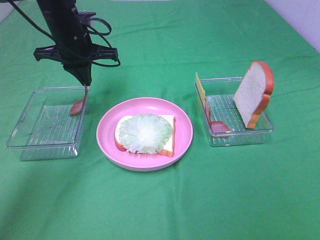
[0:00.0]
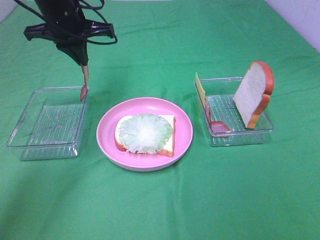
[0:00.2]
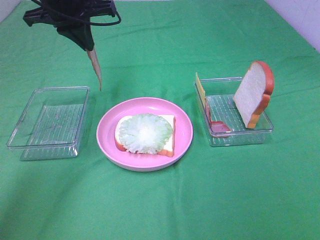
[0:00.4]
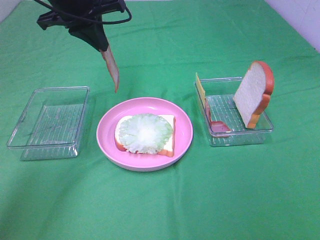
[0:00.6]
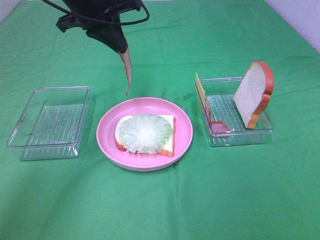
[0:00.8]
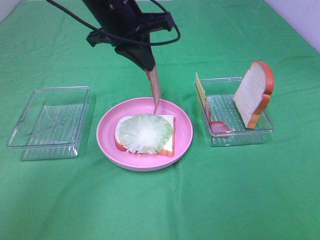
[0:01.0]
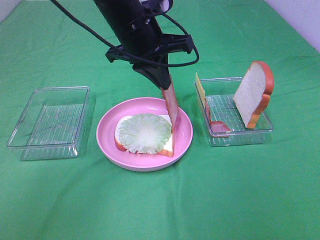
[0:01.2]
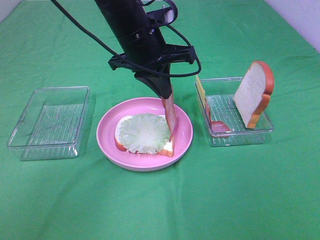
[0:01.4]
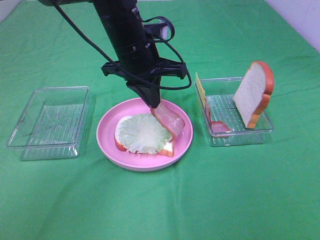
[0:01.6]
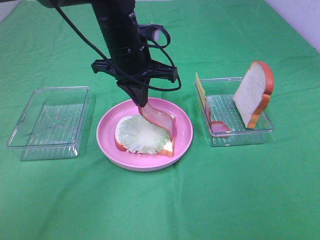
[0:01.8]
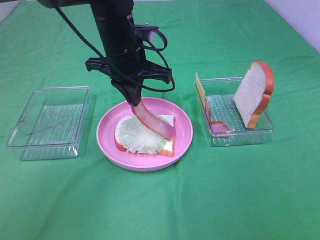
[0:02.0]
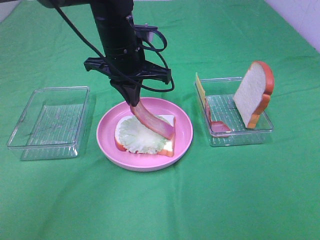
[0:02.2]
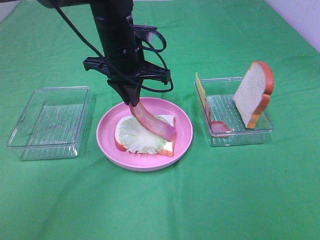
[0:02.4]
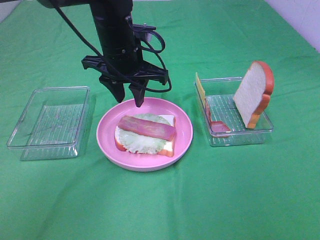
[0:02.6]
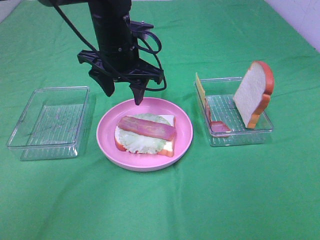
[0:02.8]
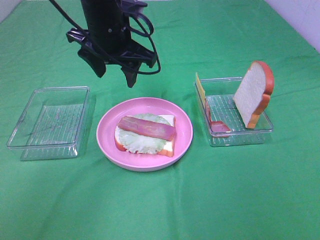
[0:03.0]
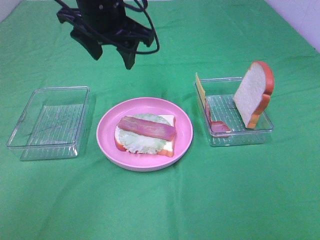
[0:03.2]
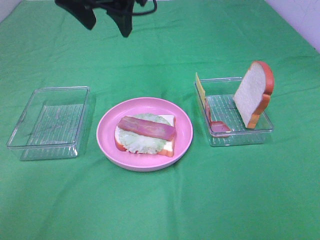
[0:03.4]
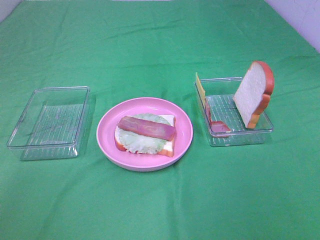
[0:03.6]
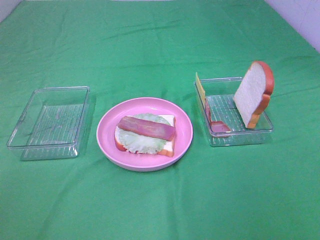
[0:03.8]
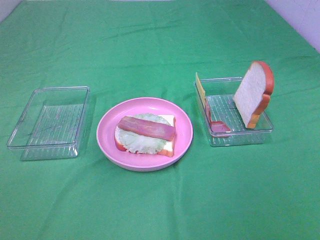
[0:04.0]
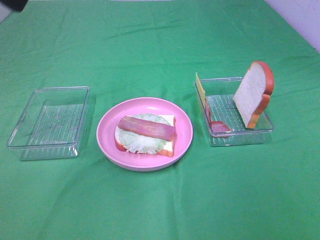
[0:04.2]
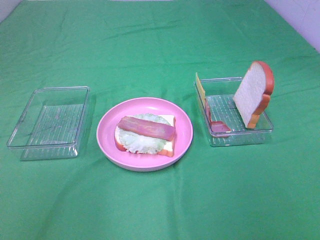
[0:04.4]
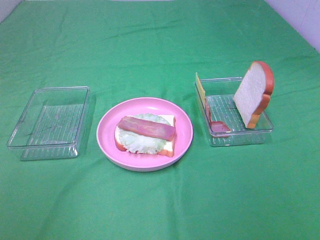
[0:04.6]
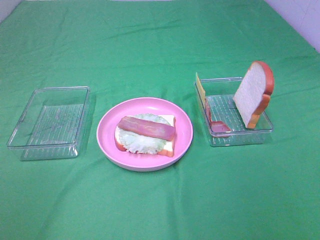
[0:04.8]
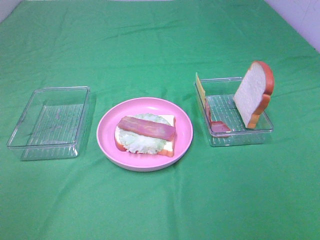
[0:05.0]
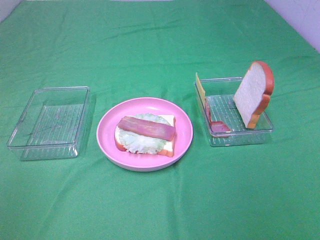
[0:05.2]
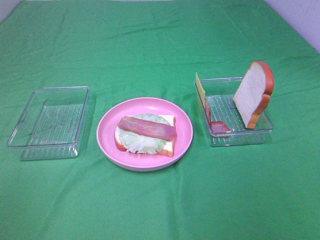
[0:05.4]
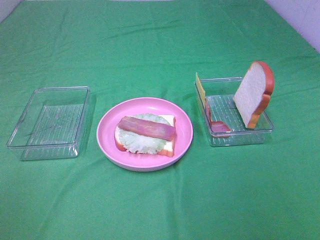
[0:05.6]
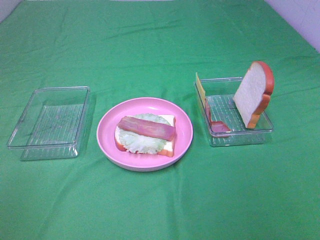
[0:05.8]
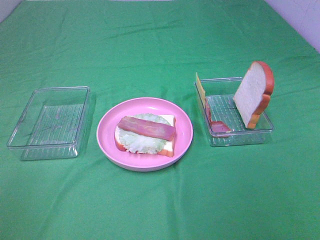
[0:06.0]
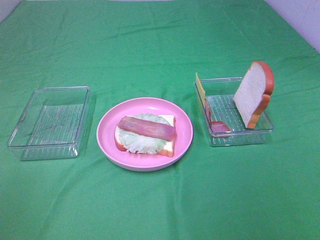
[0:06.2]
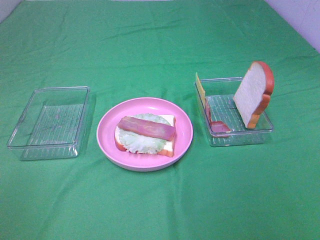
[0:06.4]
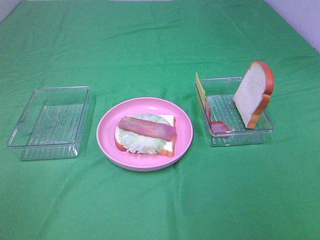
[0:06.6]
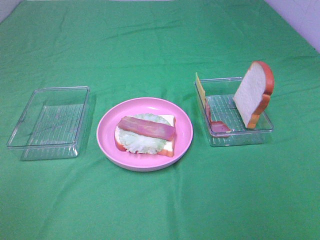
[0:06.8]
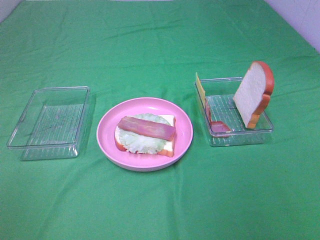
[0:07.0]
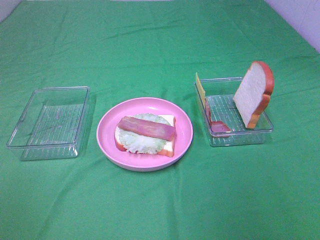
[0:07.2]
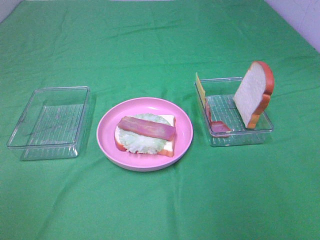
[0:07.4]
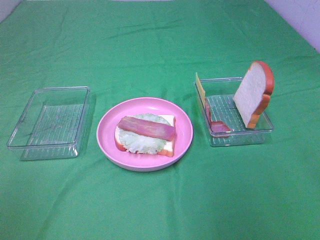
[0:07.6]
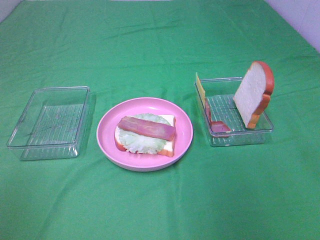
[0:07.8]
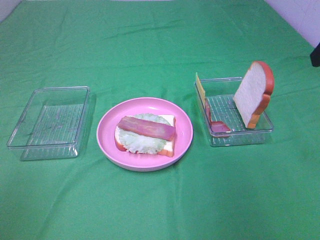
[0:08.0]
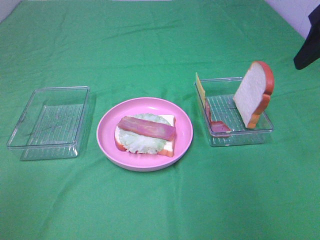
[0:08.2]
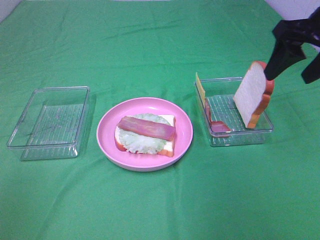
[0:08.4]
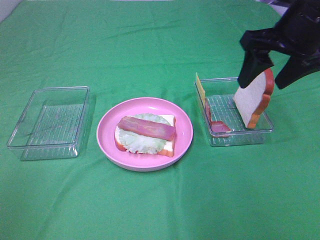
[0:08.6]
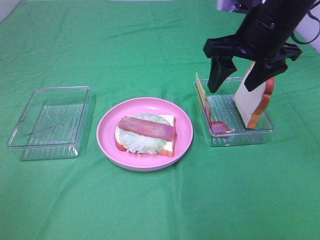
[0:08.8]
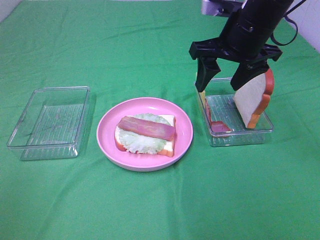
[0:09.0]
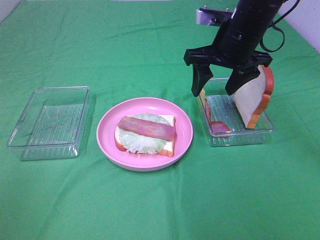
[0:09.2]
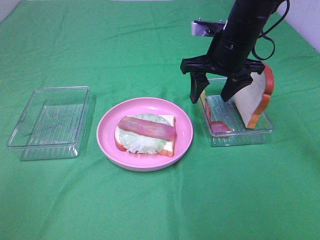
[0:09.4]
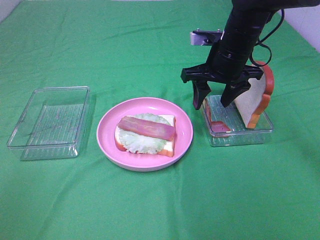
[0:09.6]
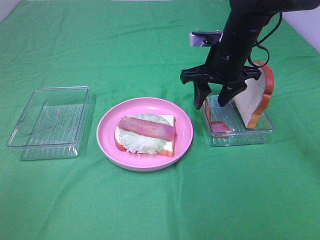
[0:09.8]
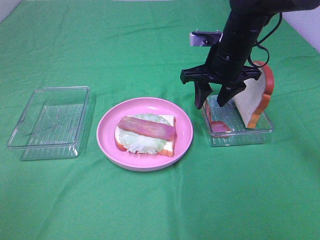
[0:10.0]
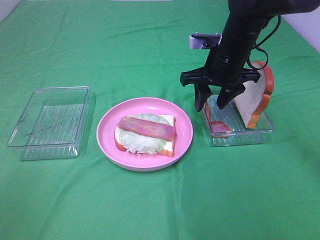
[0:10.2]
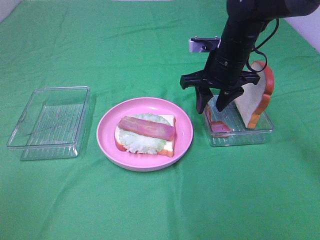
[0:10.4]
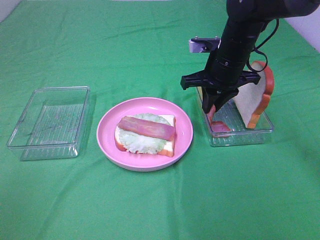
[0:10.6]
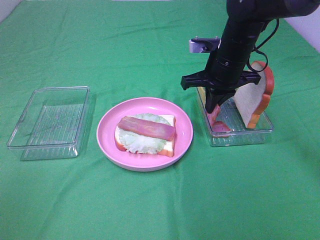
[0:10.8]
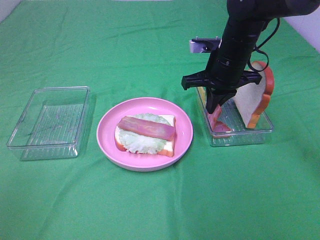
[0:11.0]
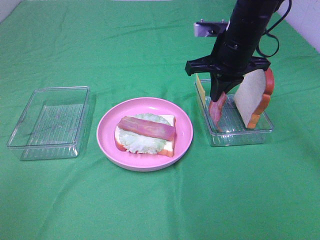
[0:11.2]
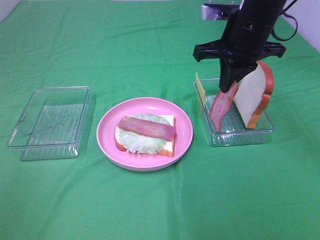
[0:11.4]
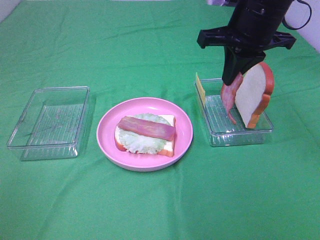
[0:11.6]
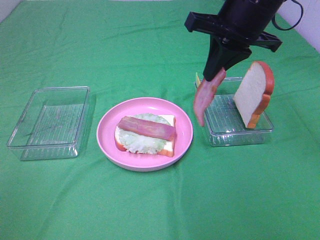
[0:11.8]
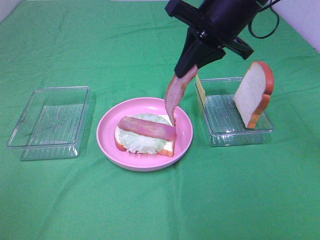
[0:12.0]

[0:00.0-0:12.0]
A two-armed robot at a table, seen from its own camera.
Task of the whole recording: Make sandwiches.
Step, 0:00.0 to 0:02.4: Left hand:place bacon on lettuce slice.
Step, 0:02.6 to 0:10.8: Right hand:grab the bacon.
0:00.0 to 0:01.6: The left gripper travels to the right and backward by roughly 15 cm.
0:01.6 to 0:03.0: The left gripper opens its fingers.
0:03.0 to 0:04.4: The left gripper is displaced backward, to the left and upward by about 35 cm.
0:07.6 to 0:09.0: The right gripper heads forward, to the left and downward, covering some 25 cm.
0:09.0 to 0:10.4: The right gripper moves downward, some 10 cm.
0:10.4 to 0:12.0: The right gripper shifts roughly 15 cm upward and backward, and closes.

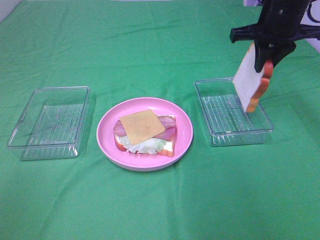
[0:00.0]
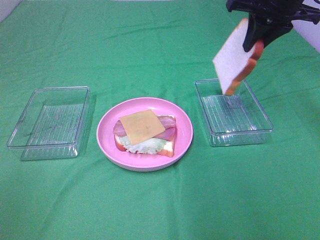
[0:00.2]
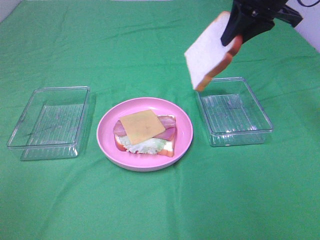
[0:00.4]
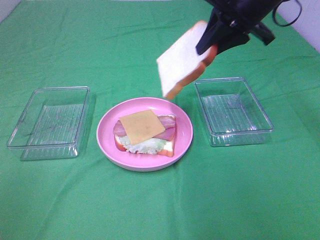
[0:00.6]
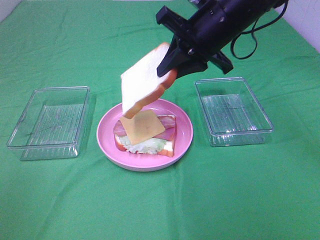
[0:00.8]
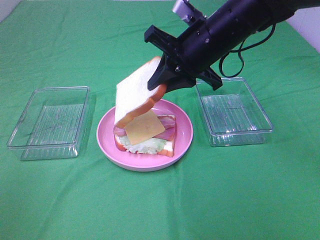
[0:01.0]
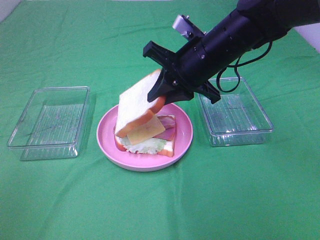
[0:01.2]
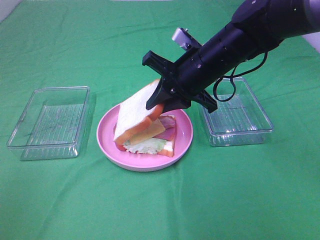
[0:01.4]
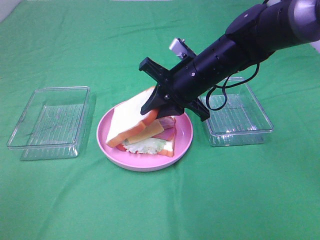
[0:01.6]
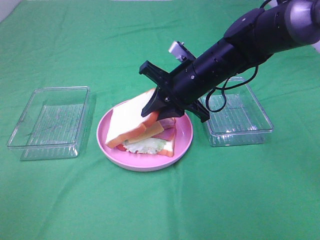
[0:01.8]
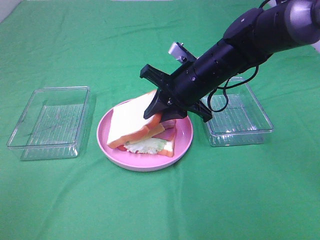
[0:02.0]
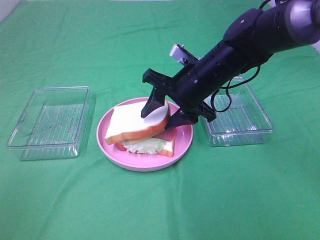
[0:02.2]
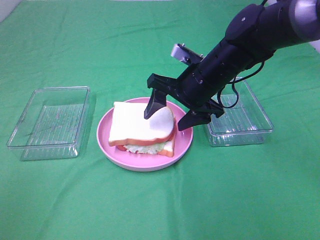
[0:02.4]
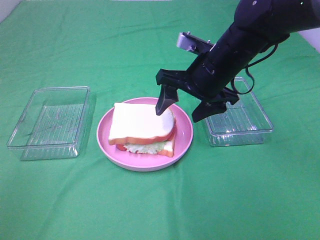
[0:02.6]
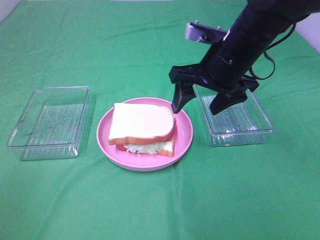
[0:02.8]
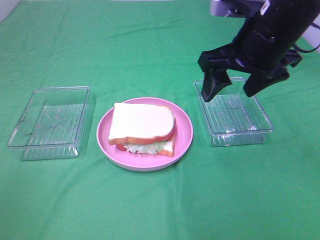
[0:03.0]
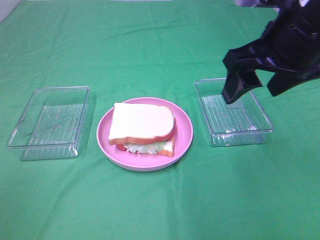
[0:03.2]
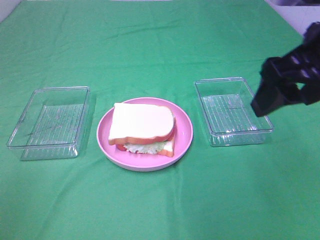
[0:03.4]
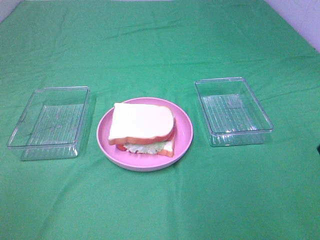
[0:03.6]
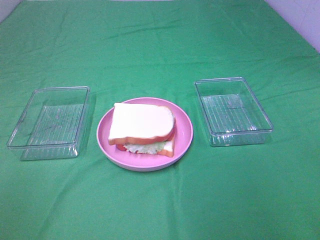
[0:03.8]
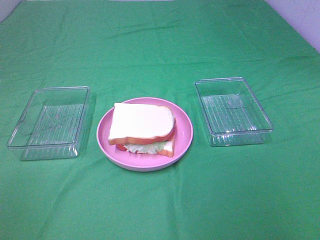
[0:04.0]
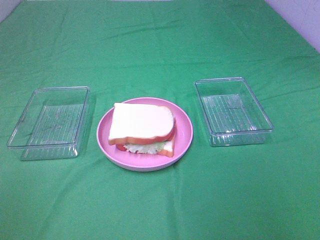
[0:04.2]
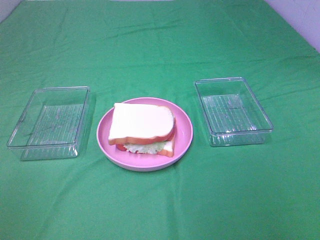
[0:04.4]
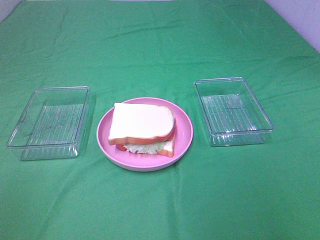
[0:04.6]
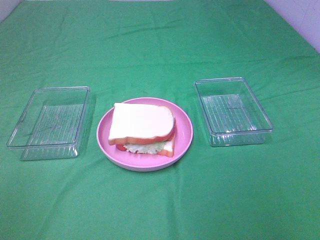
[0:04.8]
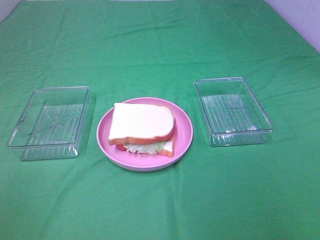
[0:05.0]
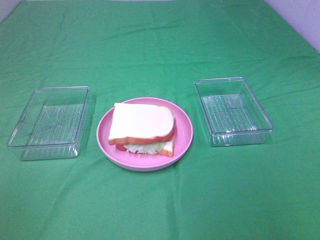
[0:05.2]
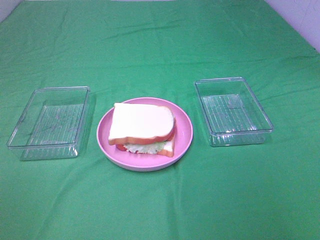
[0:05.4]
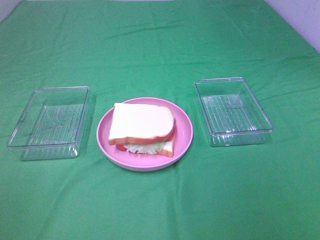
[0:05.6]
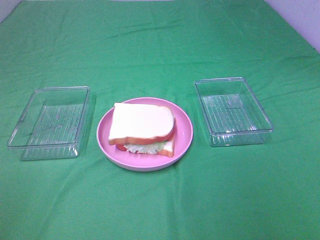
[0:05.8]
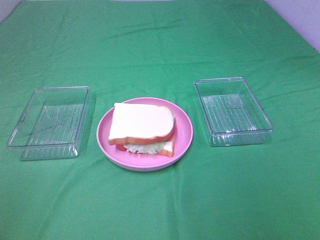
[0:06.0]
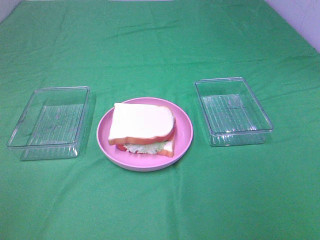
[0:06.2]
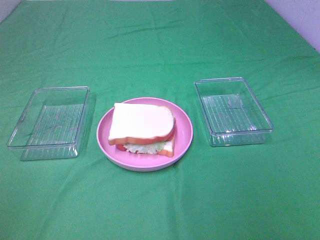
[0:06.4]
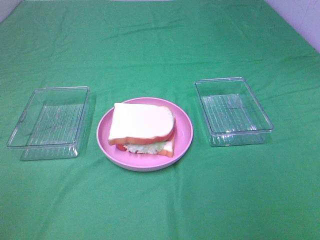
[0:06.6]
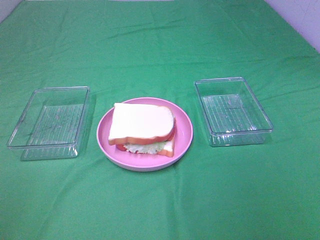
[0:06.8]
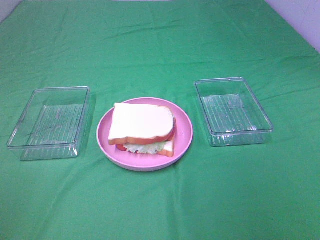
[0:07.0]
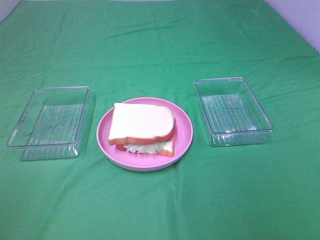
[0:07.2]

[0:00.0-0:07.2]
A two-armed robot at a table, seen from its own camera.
Task of the whole recording: Make sandwiches.
Step, 0:00.0 to 0:02.4: Right hand:place the bread slice on the plate.
0:00.0 to 0:01.4: The right gripper is displaced to the left, downward and backward by about 15 cm.
0:01.4 to 0:02.8: The right gripper ends up about 5 cm from where it was, and opens its fingers.
0:02.8 to 0:04.4: The right gripper shifts some 35 cm backward and to the right.
0:05.8 to 0:07.2: Both grippers stay put.
